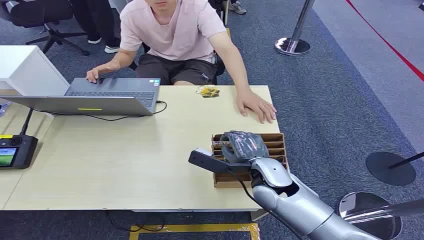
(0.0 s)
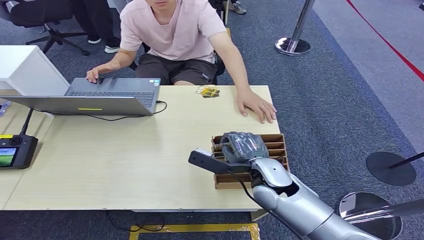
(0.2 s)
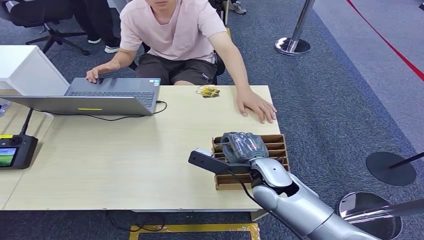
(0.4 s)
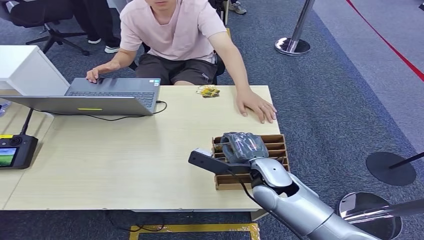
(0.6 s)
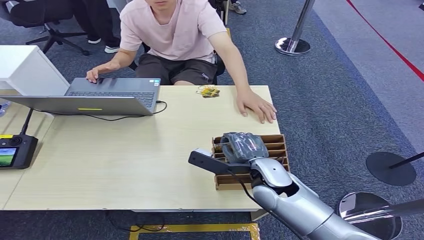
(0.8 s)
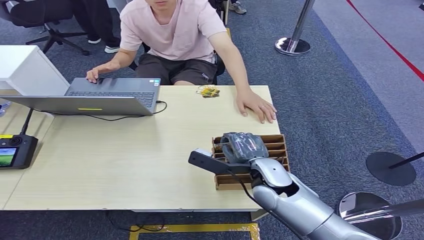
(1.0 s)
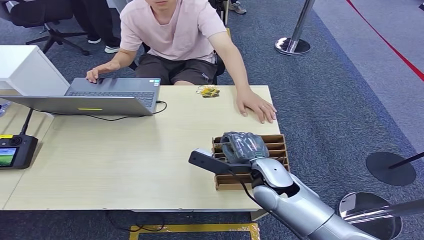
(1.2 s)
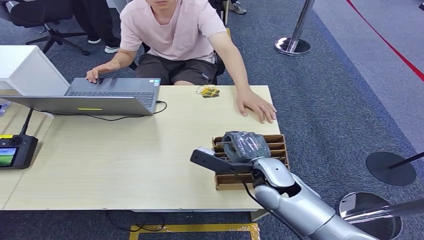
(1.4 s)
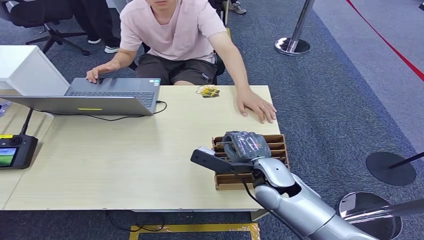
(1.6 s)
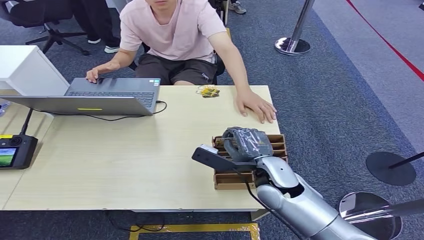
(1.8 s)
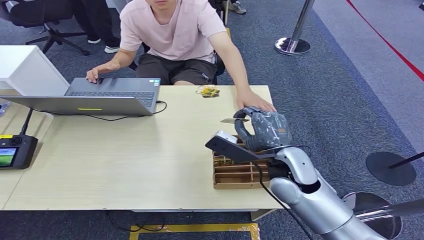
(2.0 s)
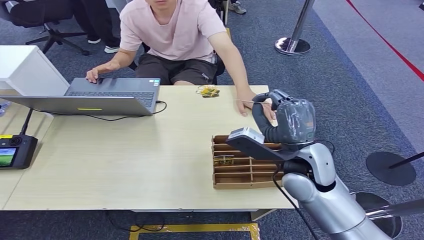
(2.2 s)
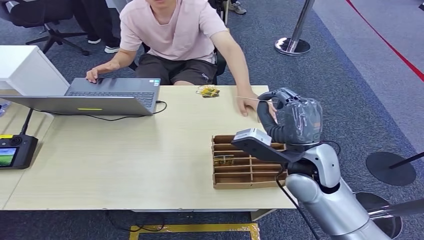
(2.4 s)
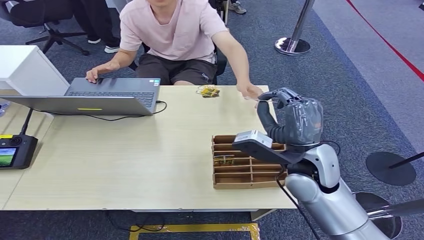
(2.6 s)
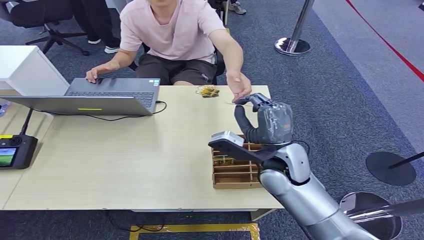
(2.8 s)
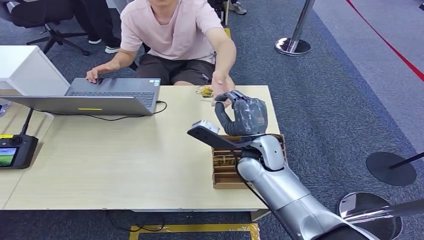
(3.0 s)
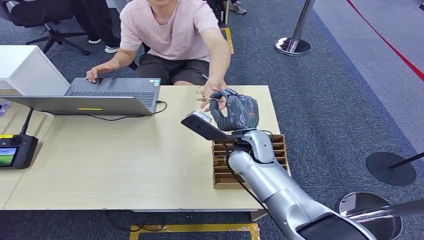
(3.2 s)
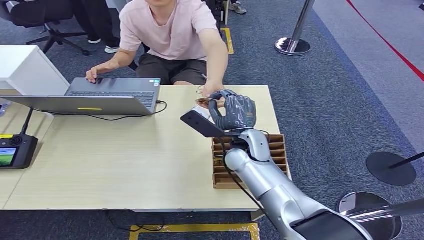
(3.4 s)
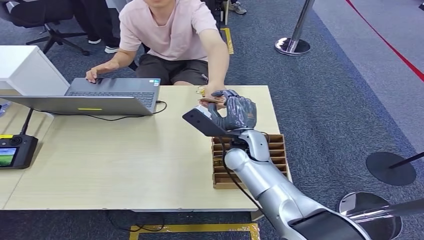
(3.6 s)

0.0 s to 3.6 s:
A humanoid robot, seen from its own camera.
Step, 0.0 to 1.8 s: Pick up the room card from the card holder.
Step, 2.2 to 3.6 s: Hand the room card to the target.
1.8 to 3.6 s: The right hand shifts about 15 cm forward, to the left and downward.
